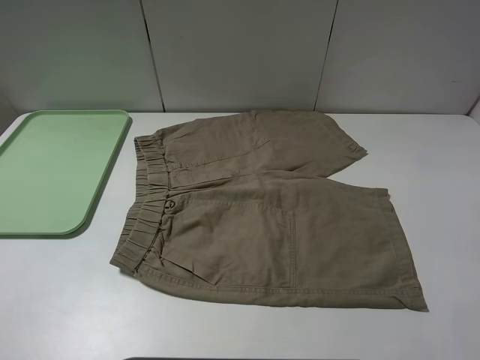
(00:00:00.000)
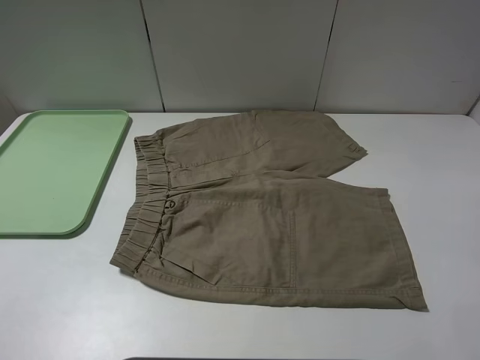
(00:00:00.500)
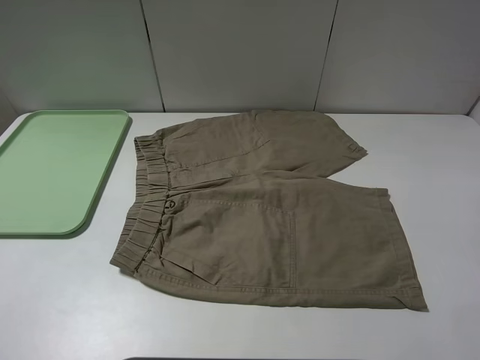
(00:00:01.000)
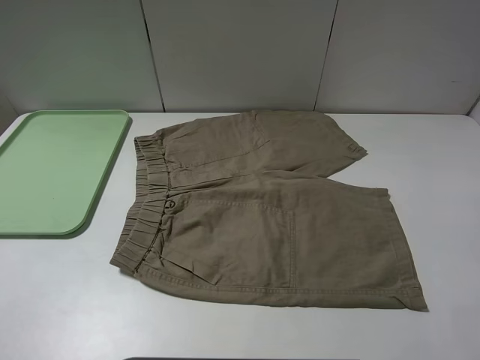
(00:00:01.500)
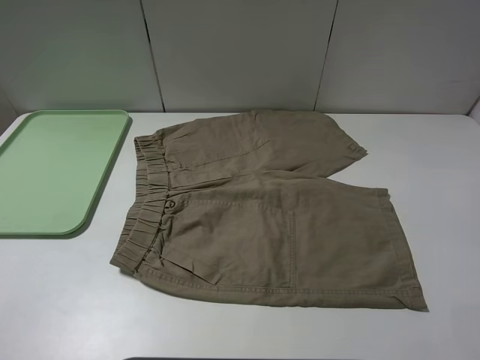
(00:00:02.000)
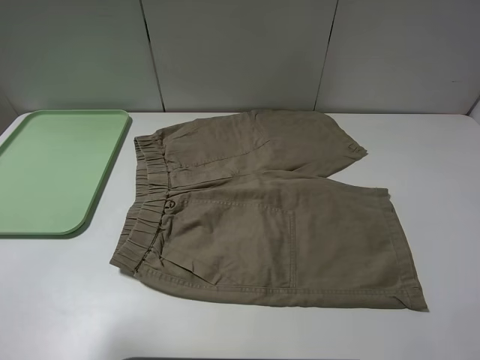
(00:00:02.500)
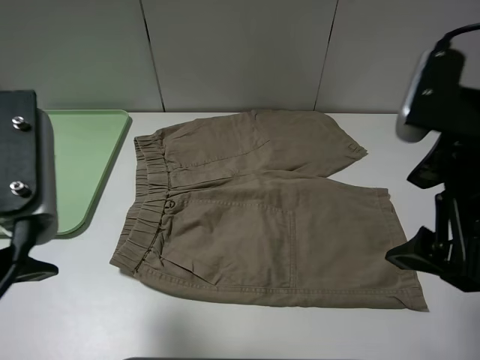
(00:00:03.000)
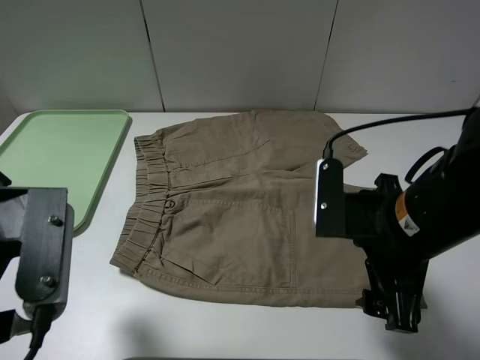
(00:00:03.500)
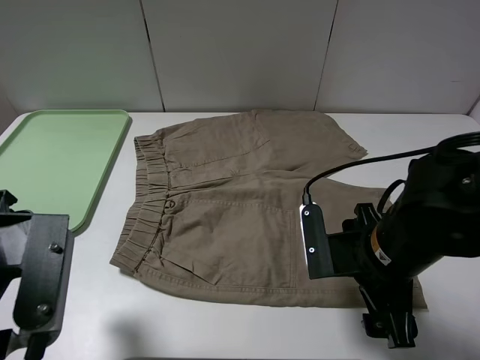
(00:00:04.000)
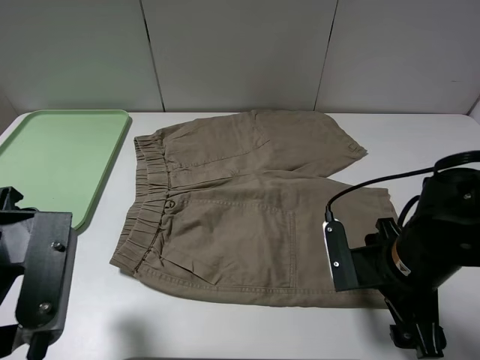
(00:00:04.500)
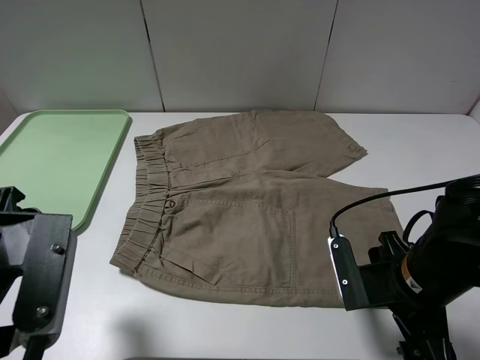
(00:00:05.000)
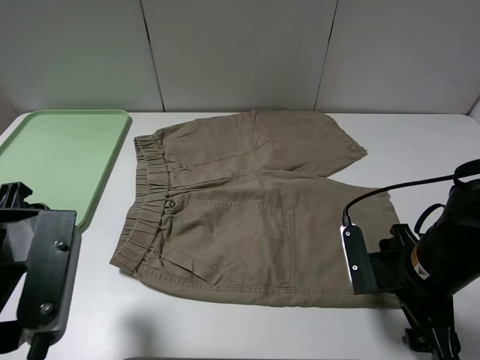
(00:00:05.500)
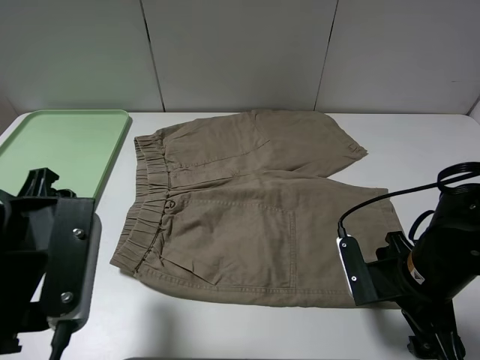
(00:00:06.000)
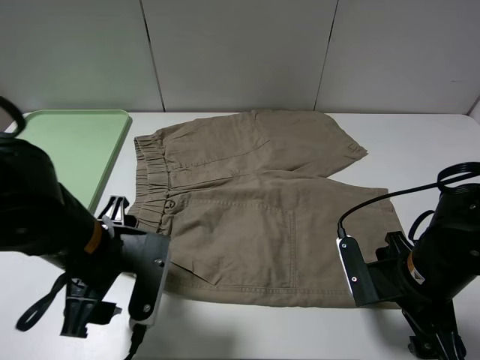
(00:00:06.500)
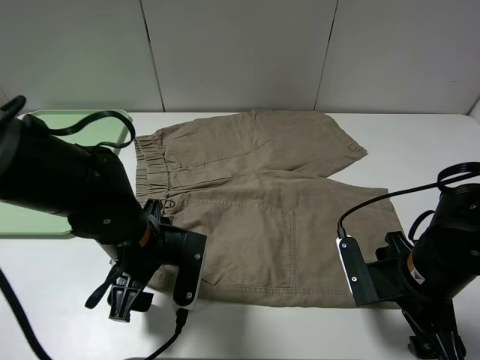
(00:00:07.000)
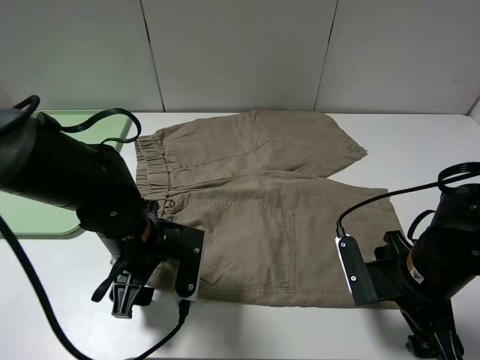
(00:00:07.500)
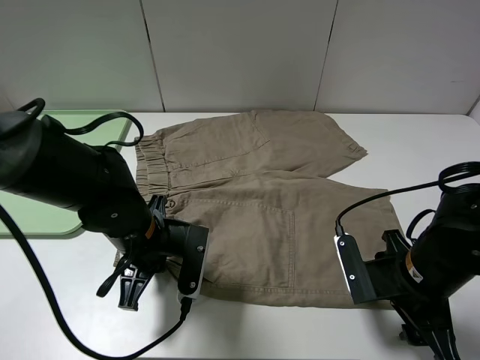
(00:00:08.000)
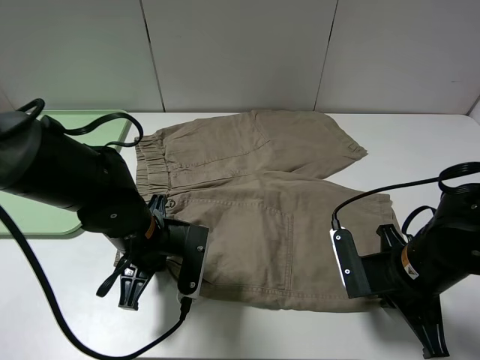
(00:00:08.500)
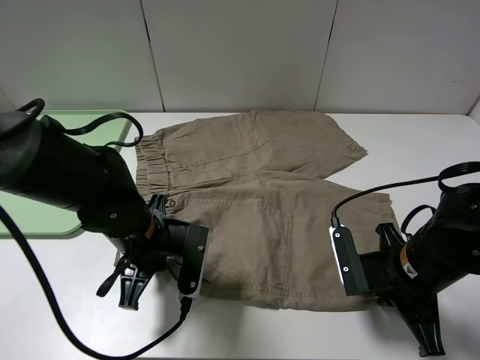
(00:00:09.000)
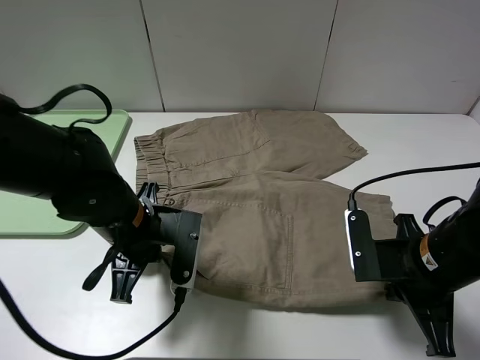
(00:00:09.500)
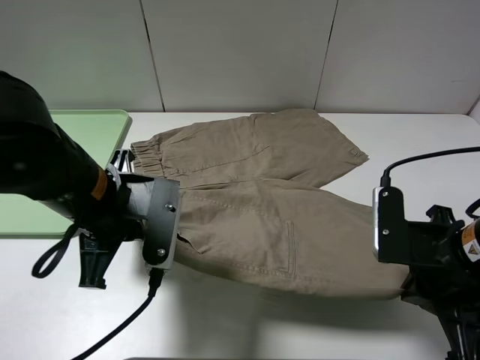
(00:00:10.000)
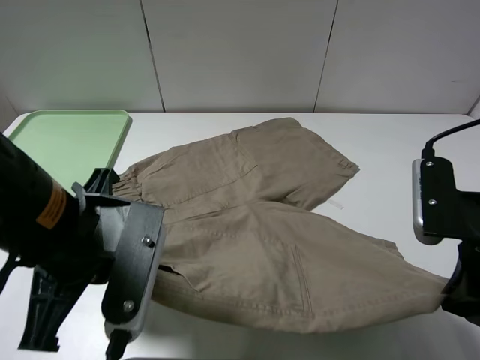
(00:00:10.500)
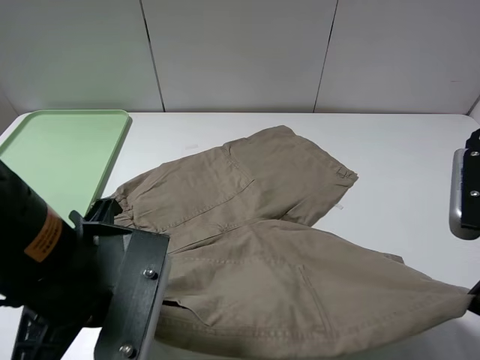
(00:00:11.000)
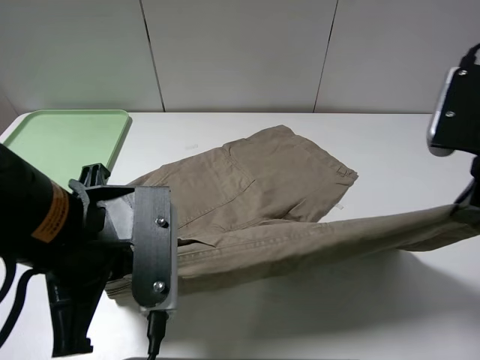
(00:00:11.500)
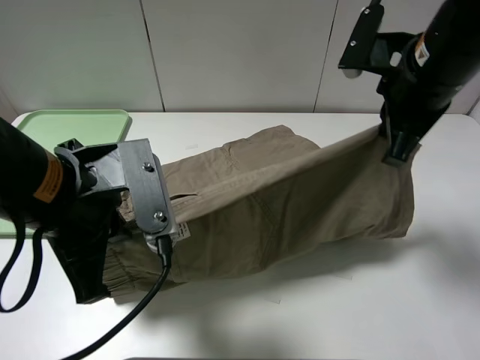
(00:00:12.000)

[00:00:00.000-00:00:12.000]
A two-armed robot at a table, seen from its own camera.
Task of the whole recording: fold the khaki jeans in half with two grippers, then fold them in half again, and use the left claw to place the folded fold khaki jeans on the tray.
Step, 00:00:00.000 to 00:00:08.000: Grasp the khaki trousers with the left gripper.
00:00:02.000 to 00:00:04.000: The right gripper goes about 25 cm downward, to the left and forward. The left gripper moves forward, to the right and downward, approximately 15 cm.
00:00:04.000 to 00:00:06.000: The right gripper travels to the right by approximately 5 cm.
00:00:06.000 to 00:00:08.000: The left gripper is displaced downward, forward and to the right by approximately 15 cm, and closes up.
00:00:08.000 to 00:00:10.000: The two grippers go about 10 cm upward. The right gripper closes its fingers.
00:00:10.000 to 00:00:12.000: The right gripper heads forward and upward, covering some 20 cm.

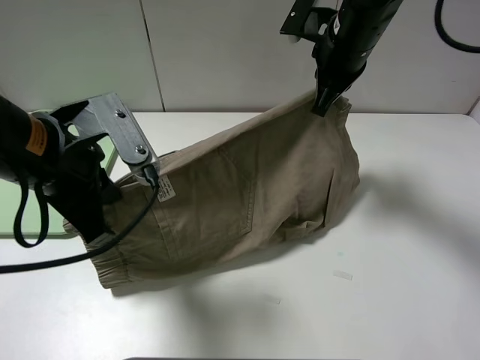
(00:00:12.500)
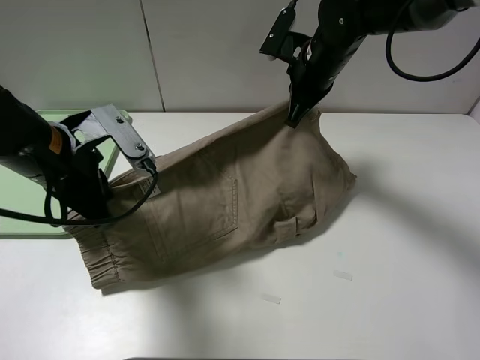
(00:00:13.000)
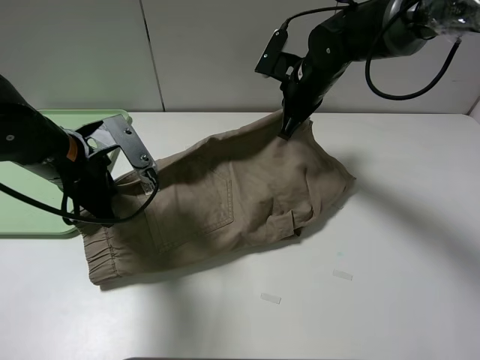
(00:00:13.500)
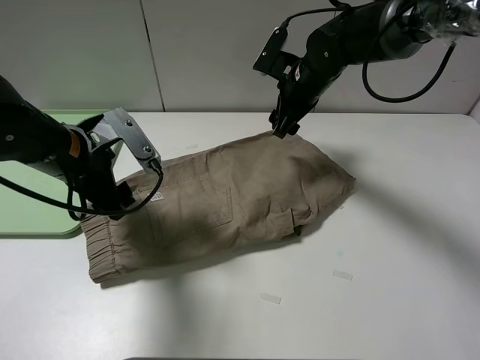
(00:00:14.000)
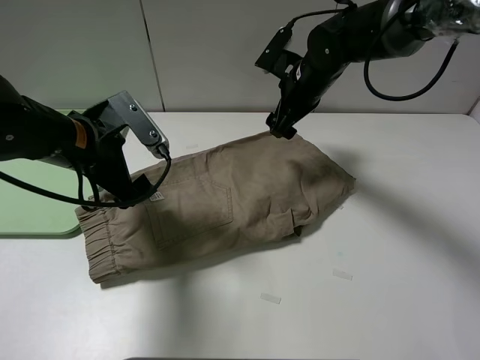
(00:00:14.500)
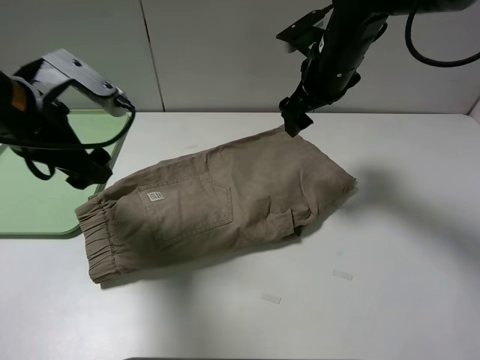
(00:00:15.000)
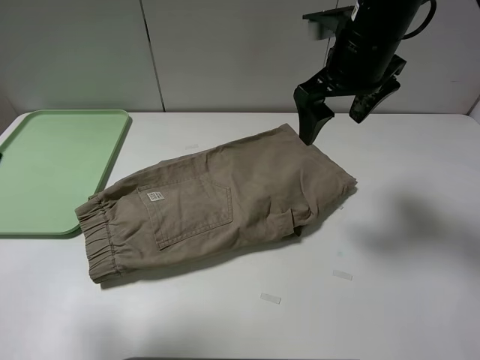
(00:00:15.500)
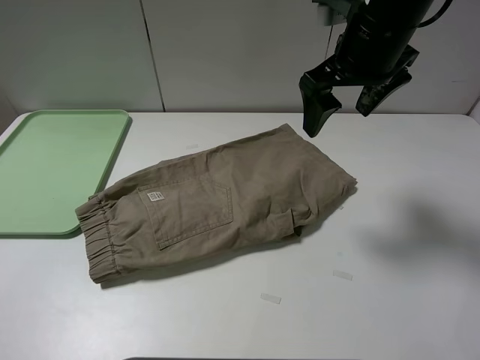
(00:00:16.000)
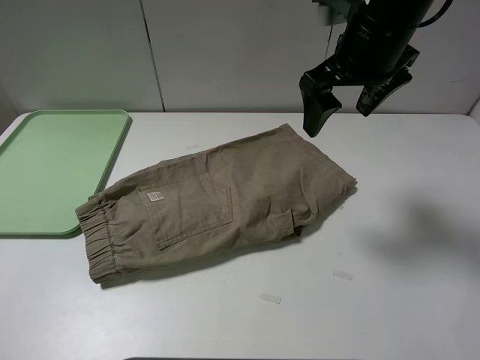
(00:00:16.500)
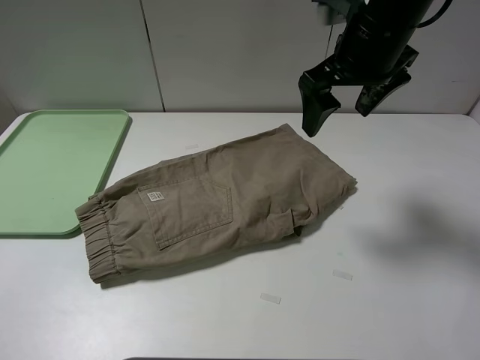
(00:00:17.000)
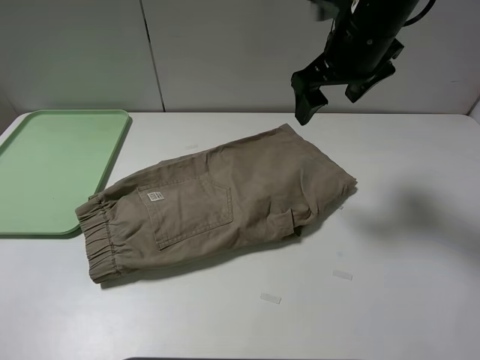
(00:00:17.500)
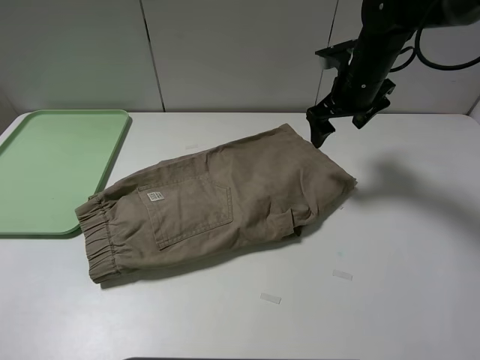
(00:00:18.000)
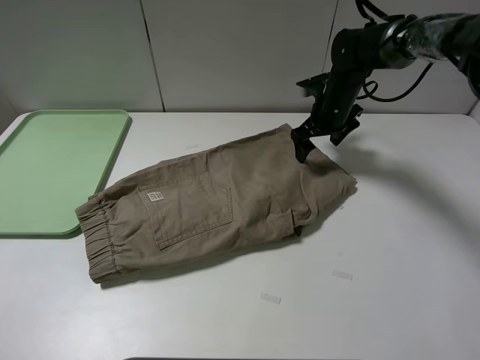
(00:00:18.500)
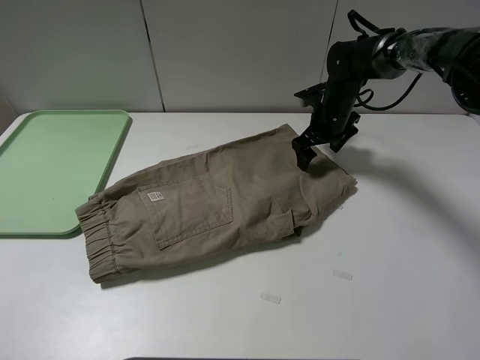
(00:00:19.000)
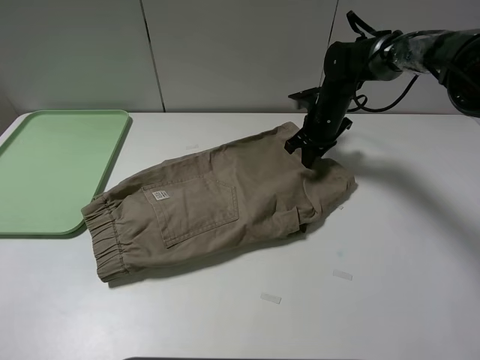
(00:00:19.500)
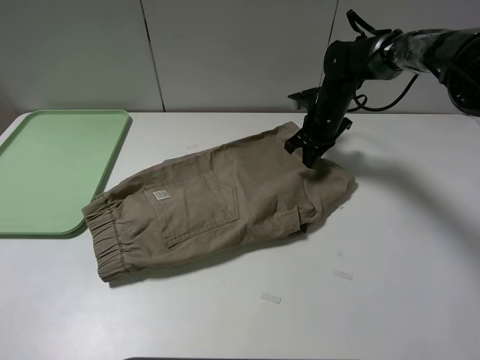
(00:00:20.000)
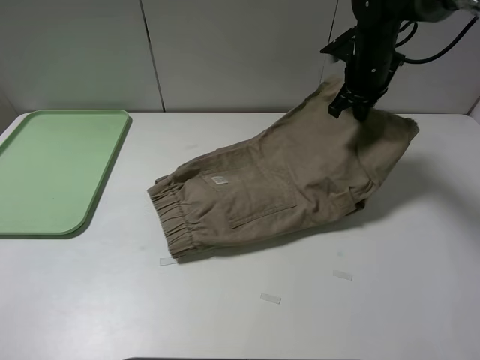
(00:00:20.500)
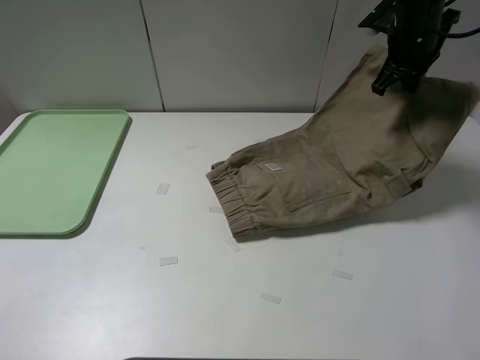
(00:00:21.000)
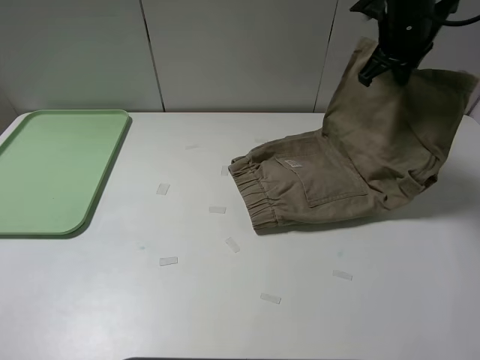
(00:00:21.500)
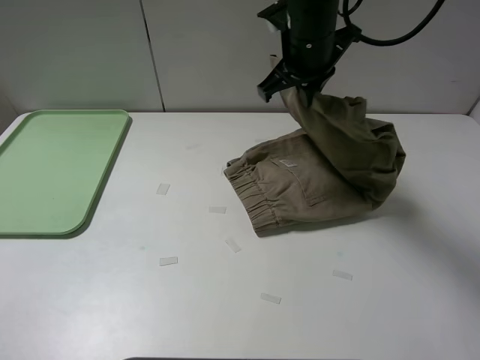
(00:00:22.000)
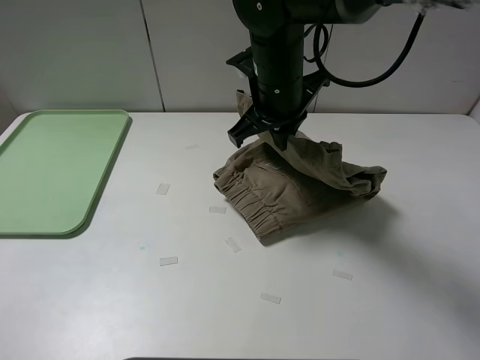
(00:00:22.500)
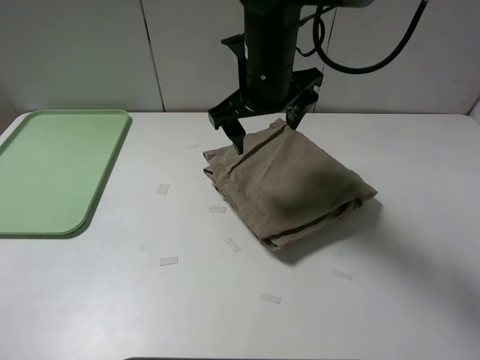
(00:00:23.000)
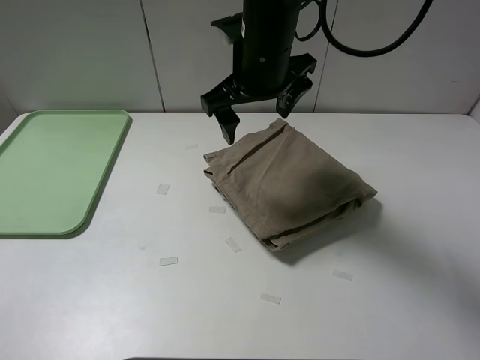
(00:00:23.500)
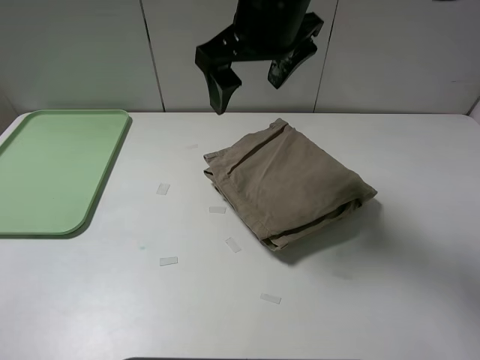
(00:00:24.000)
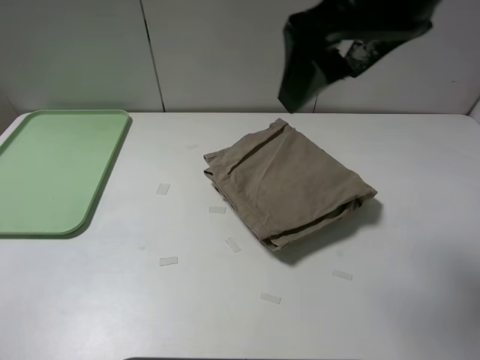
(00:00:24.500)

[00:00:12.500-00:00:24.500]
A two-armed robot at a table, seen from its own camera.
Task of the whole recording: fold the khaki jeans in half with two grippers, then fold them in half again, and use the left claw to place the folded fold khaki jeans on the tray.
Step, 00:00:14.500 to 00:00:19.500: Grasp the khaki trousers with the right gripper.
Step, 00:00:20.000 to 00:00:22.500: Fold the khaki trousers from right to left with the right gripper.
00:00:12.500 to 00:00:14.500: The left gripper moves forward and downward, roughly 10 cm, and opens up. Meanwhile the right gripper travels downward by roughly 5 cm, and opens its fingers.
00:00:14.500 to 00:00:16.500: The left gripper goes roughly 30 cm backward and to the left. The right gripper moves upward and backward, about 15 cm.
00:00:16.500 to 00:00:18.500: The right gripper is displaced downward and forward by approximately 25 cm.
00:00:18.500 to 00:00:20.500: The right gripper goes approximately 10 cm upward, and closes.
00:00:20.500 to 00:00:22.500: The right gripper moves to the left and backward, some 20 cm.
00:00:22.500 to 00:00:24.500: The right gripper goes about 20 cm upward, backward and to the right, and opens.

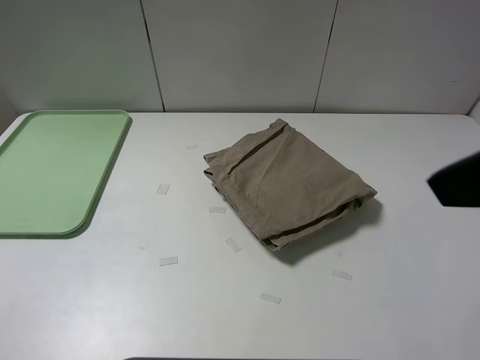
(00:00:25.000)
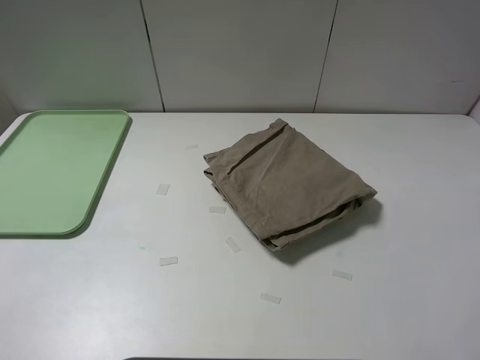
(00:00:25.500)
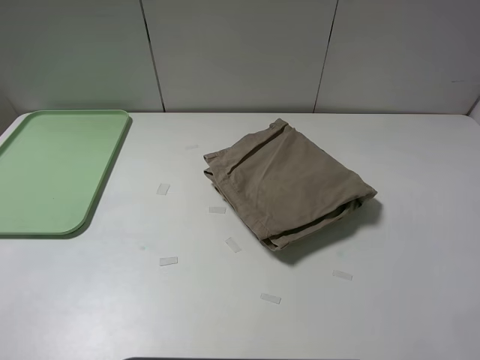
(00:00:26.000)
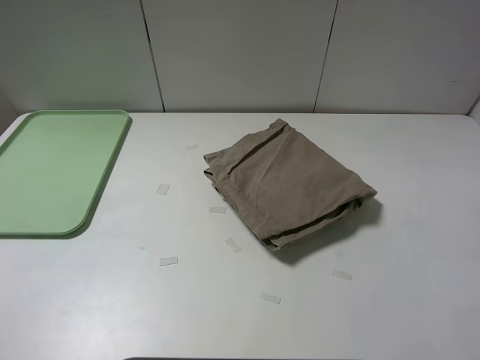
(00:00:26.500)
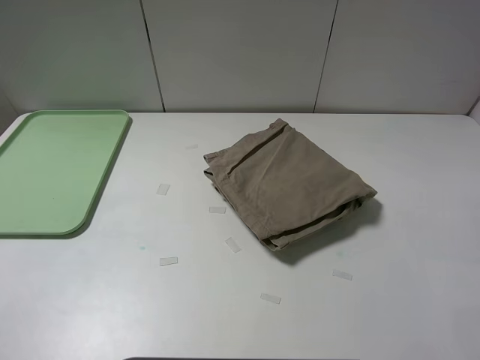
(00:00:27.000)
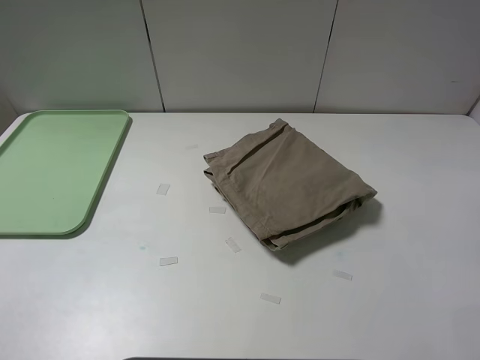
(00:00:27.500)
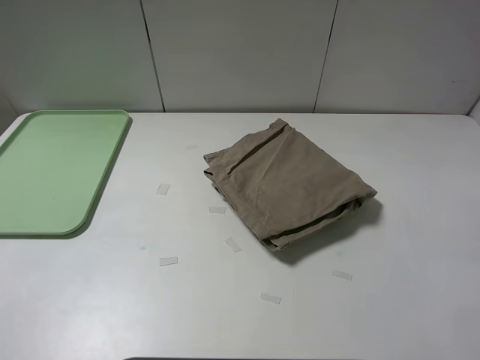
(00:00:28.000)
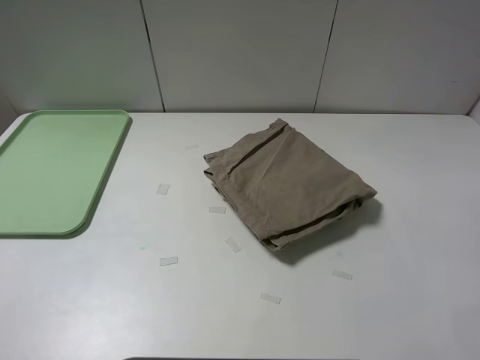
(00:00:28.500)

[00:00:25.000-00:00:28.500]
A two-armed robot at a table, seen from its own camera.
Task of the whole recording: fold the khaki jeans in half with two grippers, then fold them in half again, and use the left claw to place the folded fold khaki jeans on the tray.
00:00:25.000 to 00:00:27.000: The right gripper moves downward, backward and to the right, approximately 15 cm.
